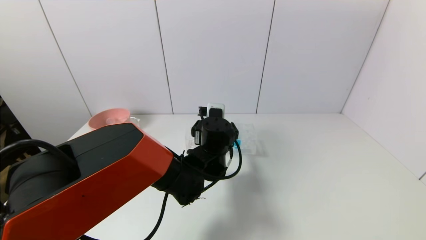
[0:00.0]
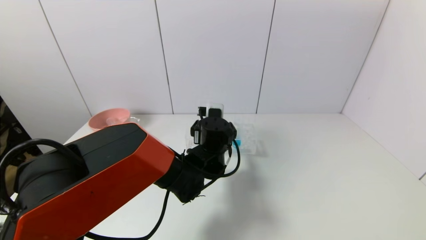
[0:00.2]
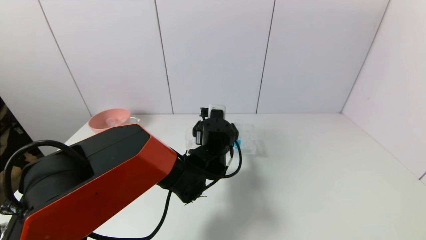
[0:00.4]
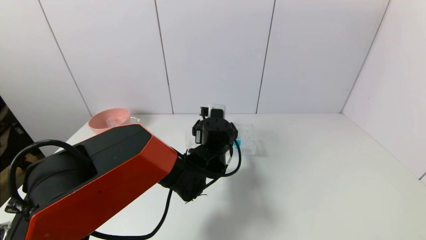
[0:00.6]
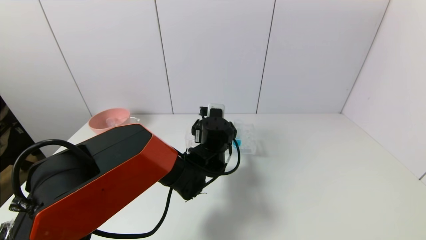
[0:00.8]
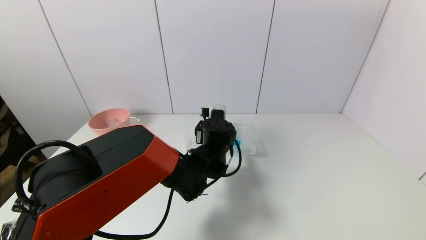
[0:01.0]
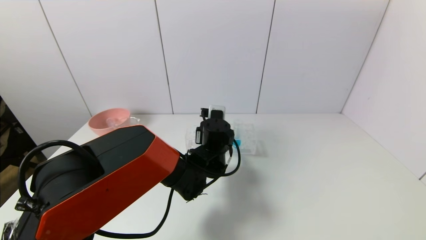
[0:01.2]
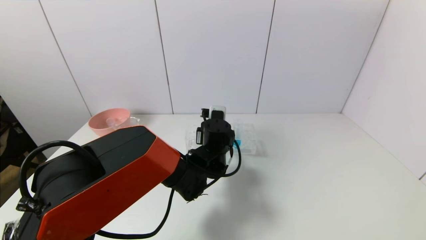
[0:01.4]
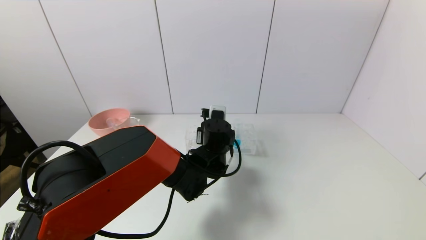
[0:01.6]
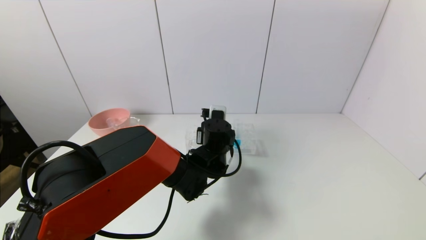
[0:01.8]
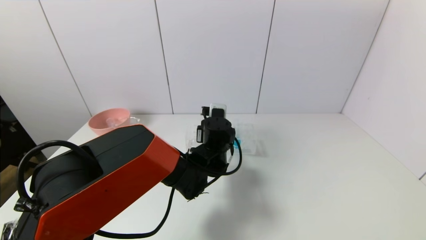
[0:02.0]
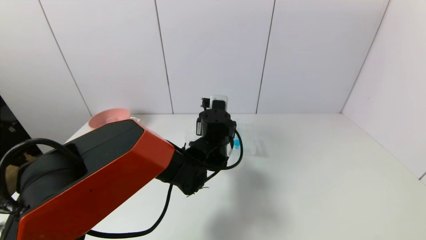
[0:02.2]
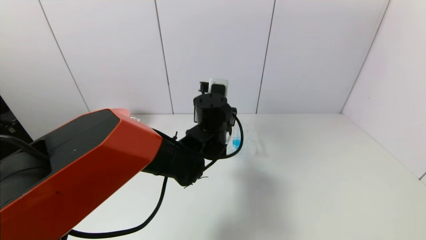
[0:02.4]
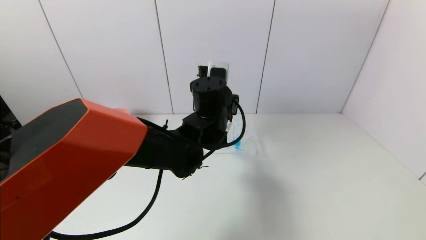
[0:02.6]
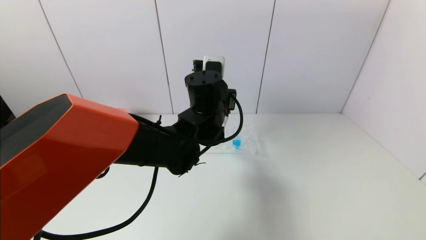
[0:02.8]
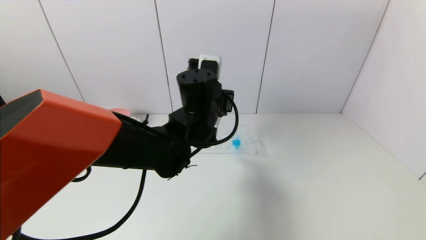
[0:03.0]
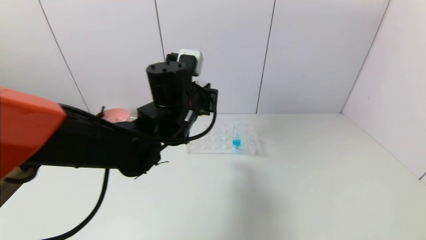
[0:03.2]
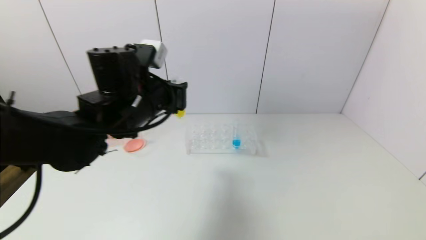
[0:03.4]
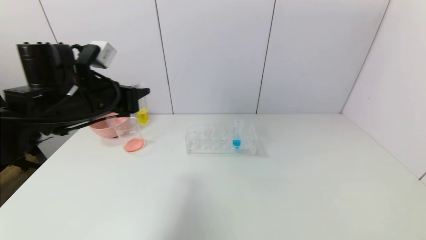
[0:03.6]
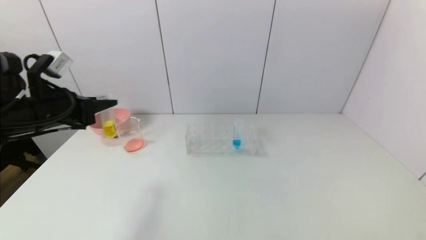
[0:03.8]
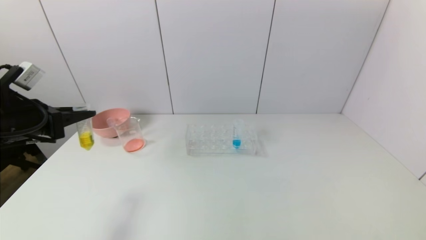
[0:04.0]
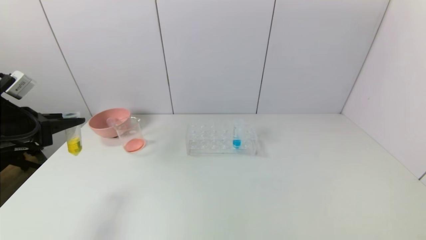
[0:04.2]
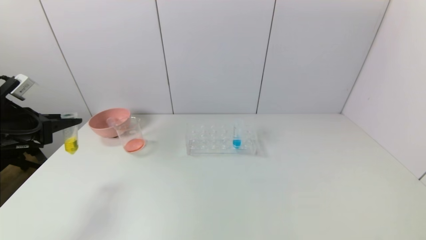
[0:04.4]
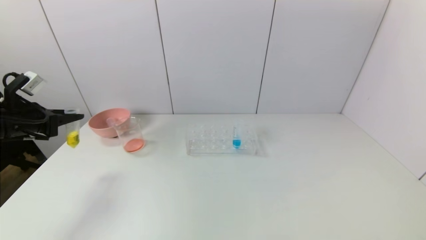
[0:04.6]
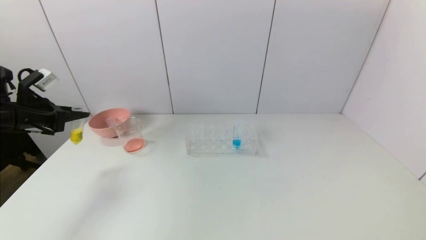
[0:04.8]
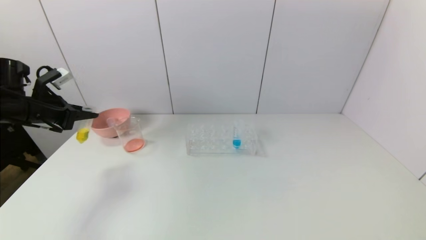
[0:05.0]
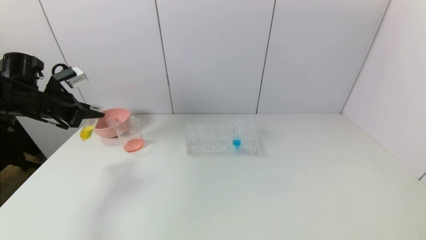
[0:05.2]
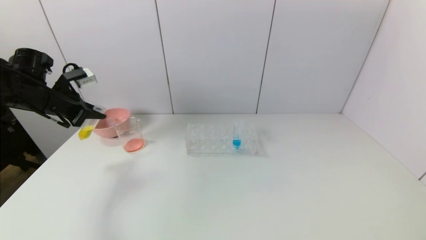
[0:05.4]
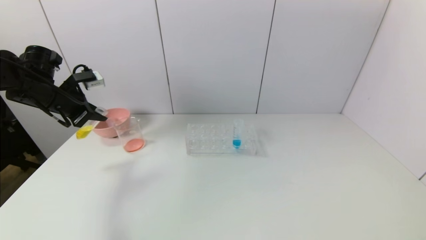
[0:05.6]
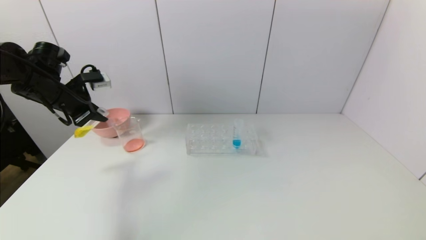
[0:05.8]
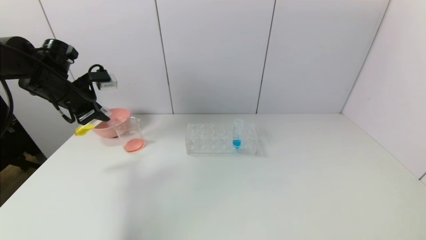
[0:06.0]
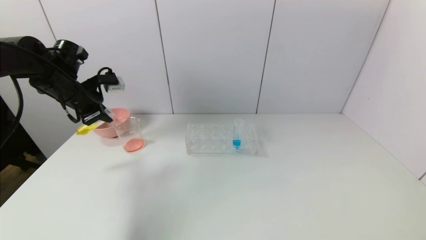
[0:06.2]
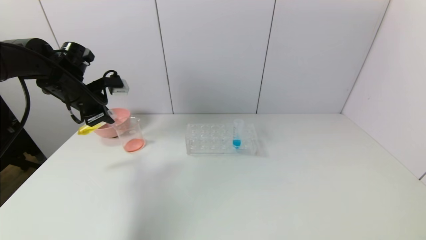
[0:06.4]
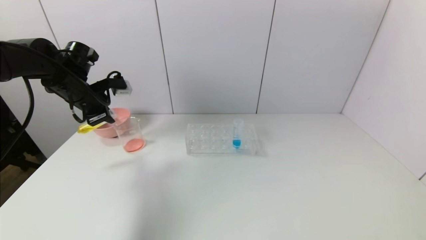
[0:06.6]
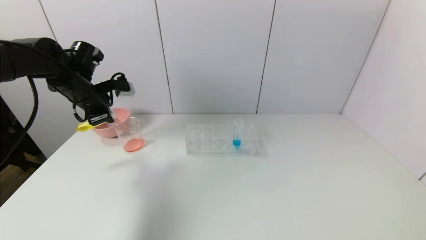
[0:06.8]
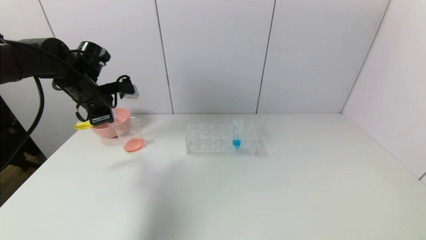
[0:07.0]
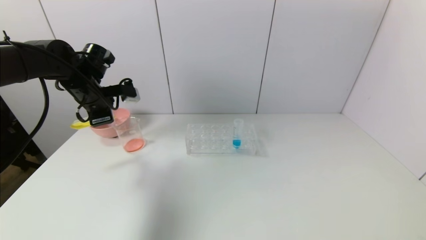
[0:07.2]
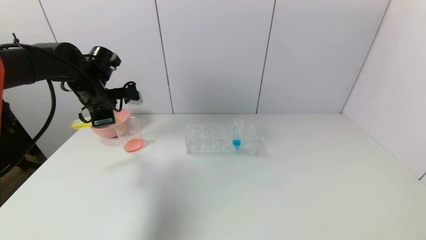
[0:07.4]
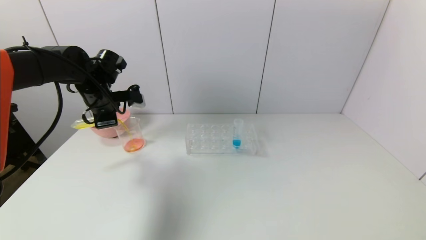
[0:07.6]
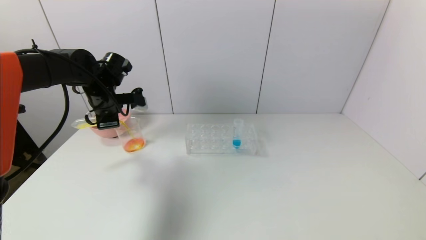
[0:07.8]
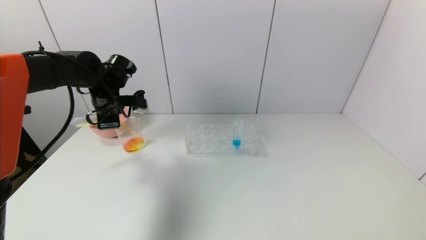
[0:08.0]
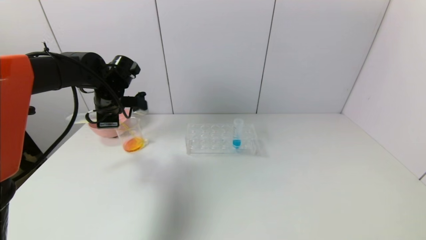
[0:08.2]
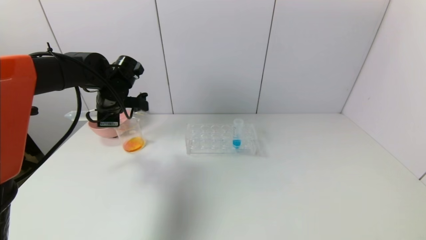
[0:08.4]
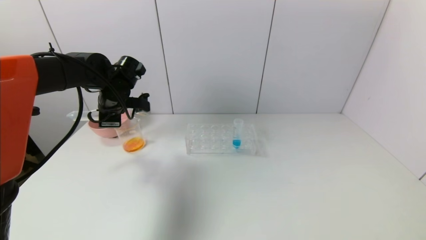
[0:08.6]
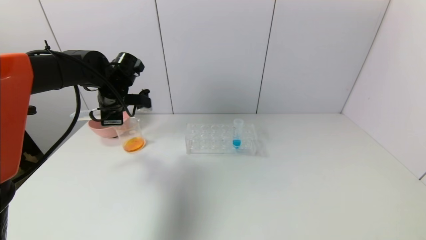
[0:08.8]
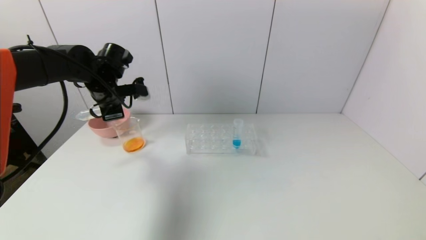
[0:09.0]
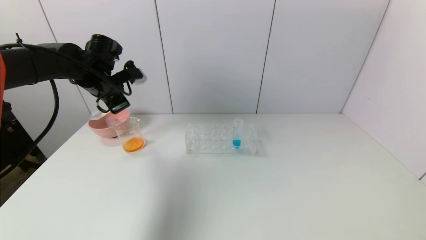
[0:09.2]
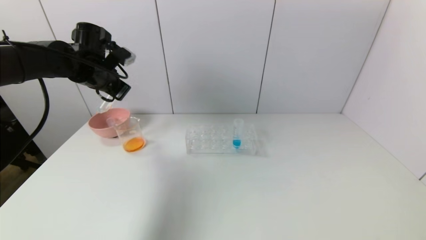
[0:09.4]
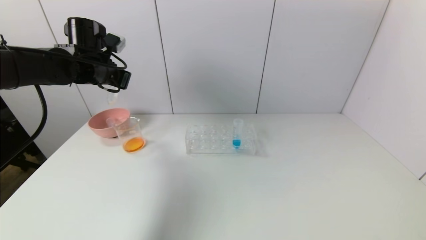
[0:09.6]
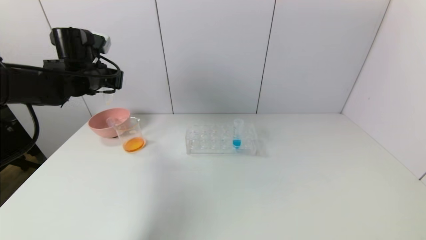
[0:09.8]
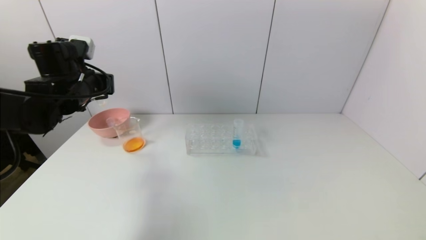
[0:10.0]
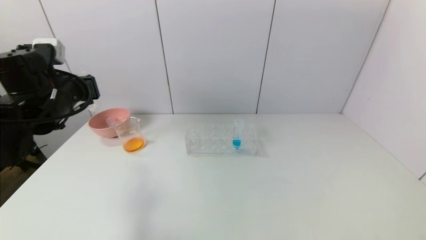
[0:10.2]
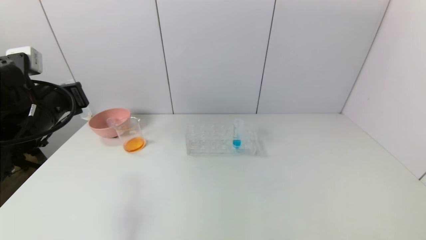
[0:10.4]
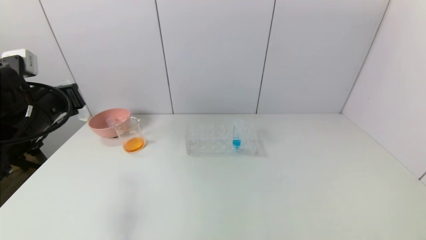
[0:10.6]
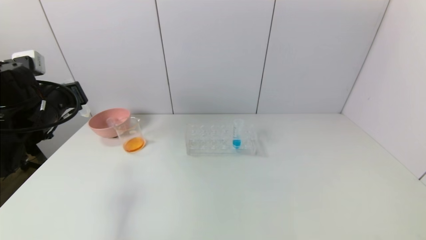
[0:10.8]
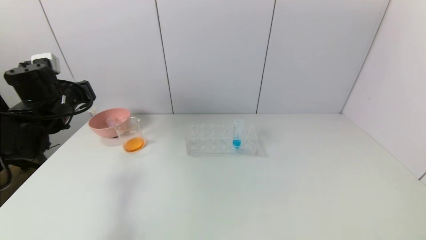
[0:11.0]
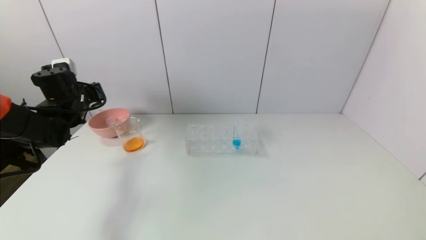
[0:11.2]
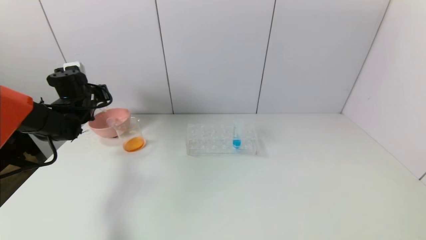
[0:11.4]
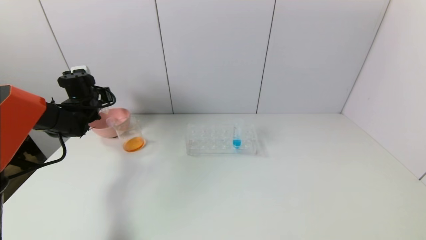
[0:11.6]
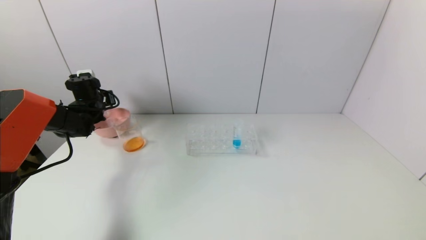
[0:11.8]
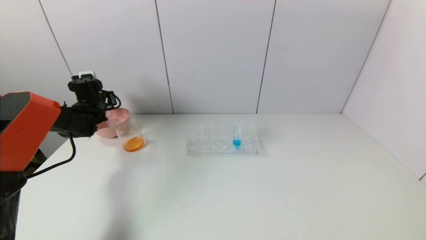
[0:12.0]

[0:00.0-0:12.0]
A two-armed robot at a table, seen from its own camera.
Task of the whole recording: pick up the test tube with yellow pigment and the test tube with red pigment by grippers and pour them into the beaker.
Step, 0:01.8 to 0:08.4: Pour the yellow reagent into the graduated cylinder with the left gripper.
0:00.0 to 0:01.6: The left gripper closes its fingers.
0:01.6 to 0:03.0: The left gripper goes some 10 cm upward.
0:03.0 to 0:04.4: The left gripper is displaced to the left by some 40 cm.
0:04.4 to 0:06.0: The left gripper heads forward and to the right, covering approximately 15 cm.
0:06.0 to 0:07.6: The left gripper heads to the right, covering some 5 cm.
0:07.6 to 0:09.0: The grippers move only a little.
0:09.0 to 0:10.4: The left gripper travels backward by approximately 15 cm.
0:10.4 to 0:12.0: The left gripper travels forward and downward by roughly 25 cm.

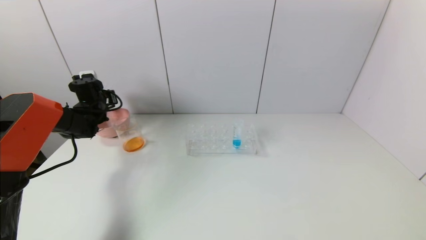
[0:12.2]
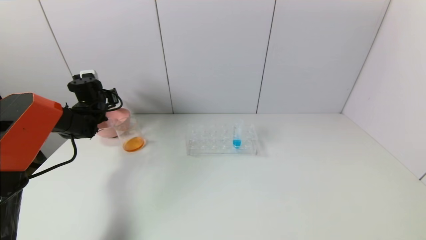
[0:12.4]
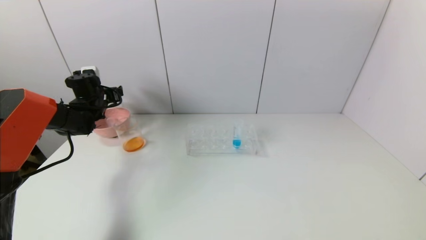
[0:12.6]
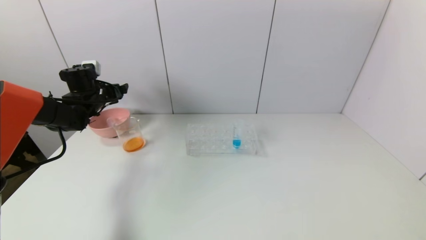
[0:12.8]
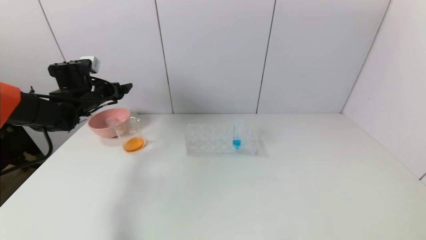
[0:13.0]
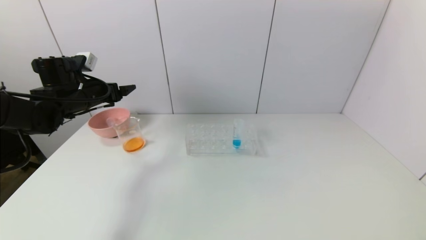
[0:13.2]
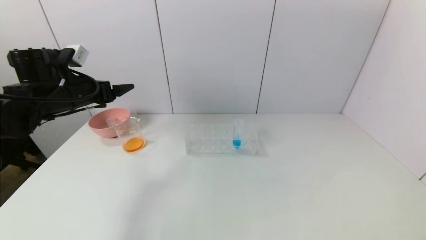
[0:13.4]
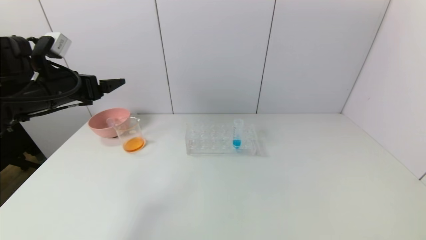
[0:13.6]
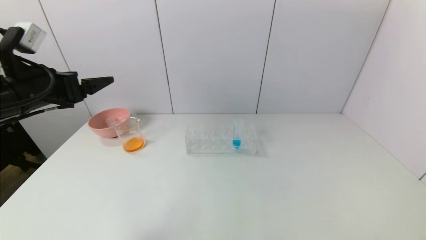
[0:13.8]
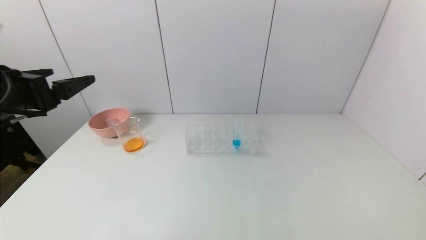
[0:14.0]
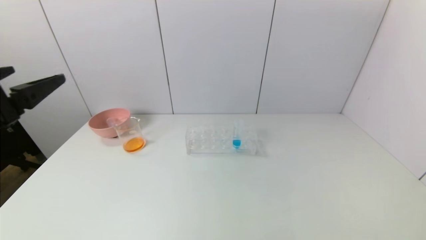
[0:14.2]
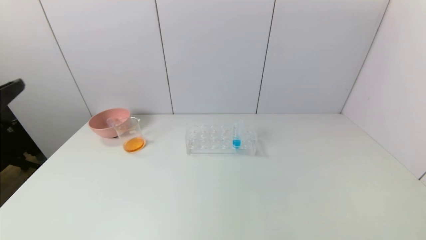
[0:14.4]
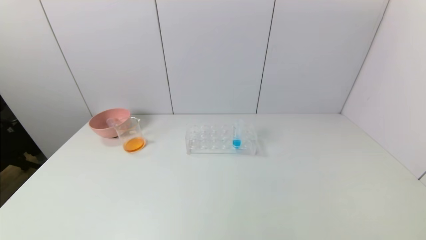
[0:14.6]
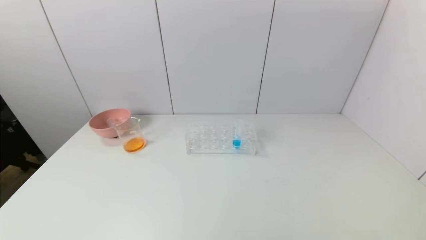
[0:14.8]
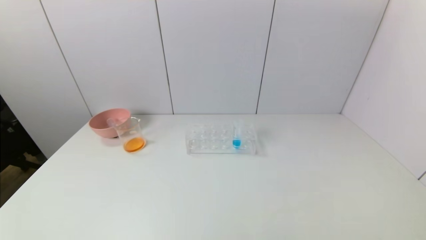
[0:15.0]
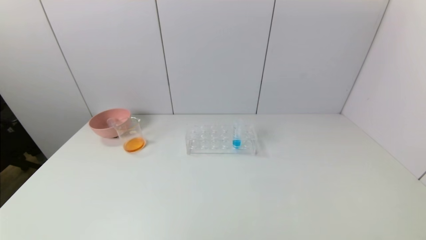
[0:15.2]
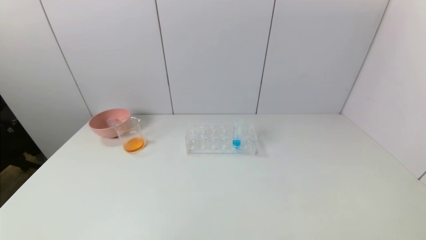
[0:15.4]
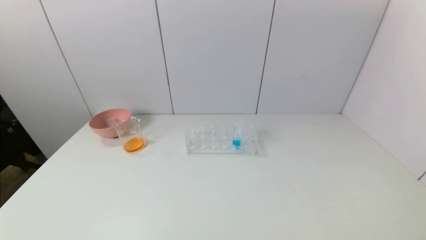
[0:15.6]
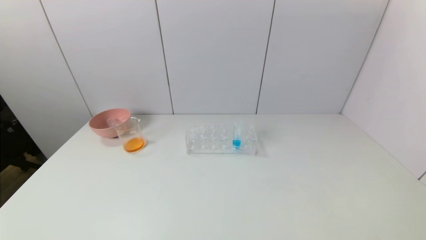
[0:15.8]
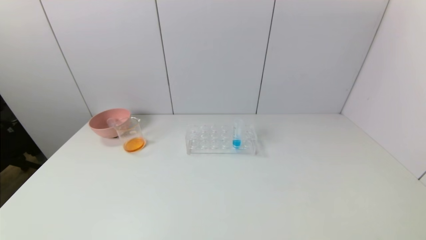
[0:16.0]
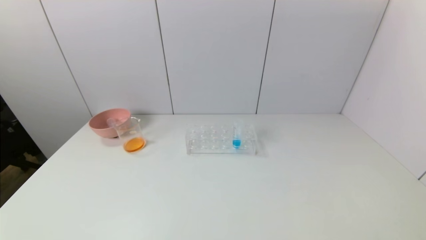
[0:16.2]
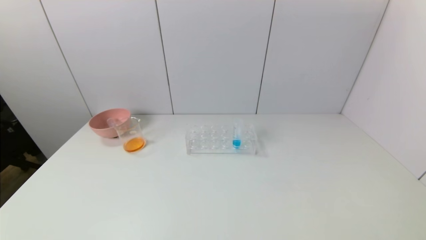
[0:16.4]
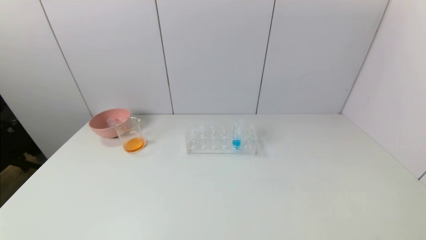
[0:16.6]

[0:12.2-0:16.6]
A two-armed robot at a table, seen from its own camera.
Task of the whole recording: pick up the test tube with yellow pigment and the test tube with red pigment by grippers and pour them into the beaker.
0:12.2 to 0:13.6: The left gripper shifts some 20 cm backward and upward, and opens up.
0:13.6 to 0:15.2: The left gripper heads backward, covering roughly 35 cm.
